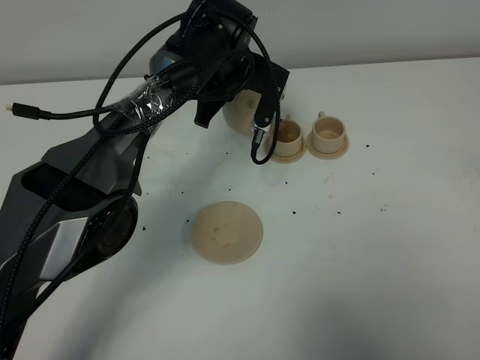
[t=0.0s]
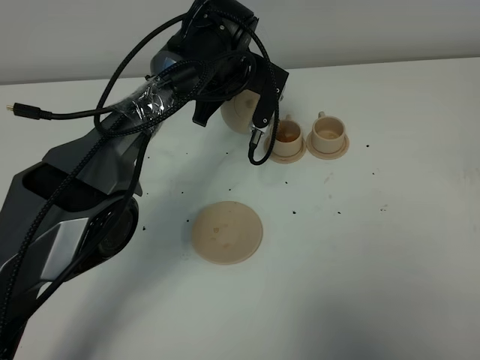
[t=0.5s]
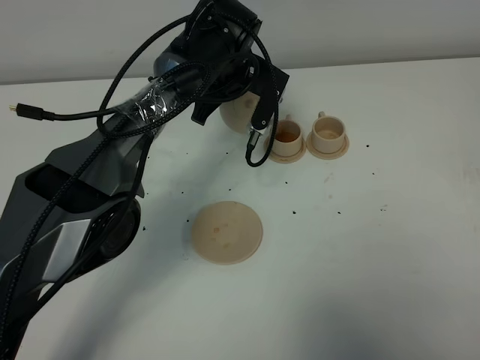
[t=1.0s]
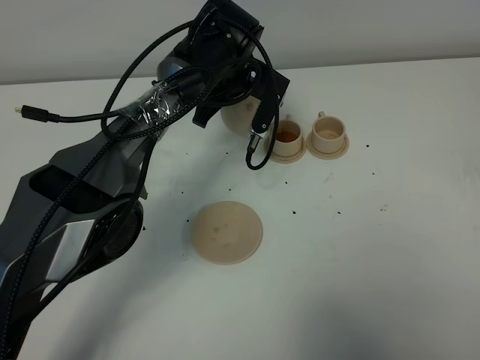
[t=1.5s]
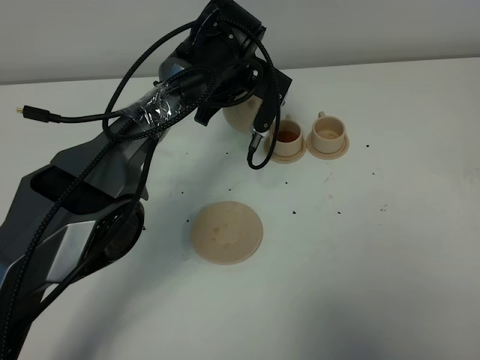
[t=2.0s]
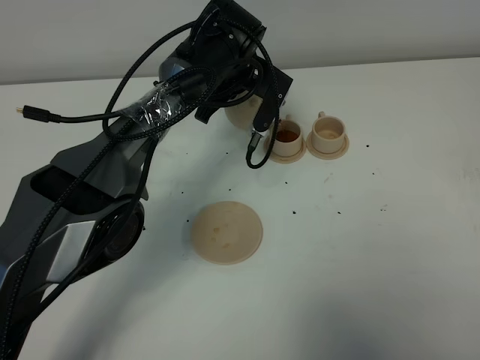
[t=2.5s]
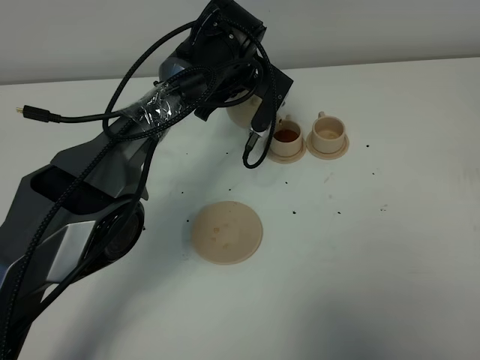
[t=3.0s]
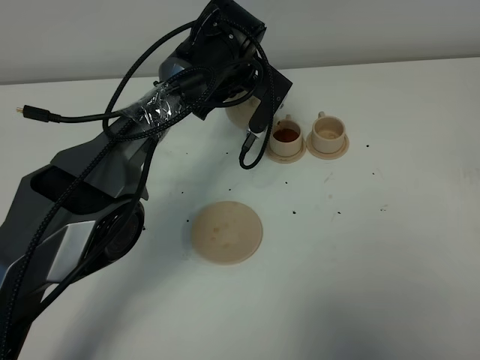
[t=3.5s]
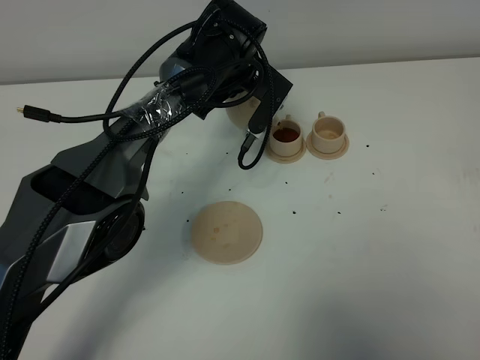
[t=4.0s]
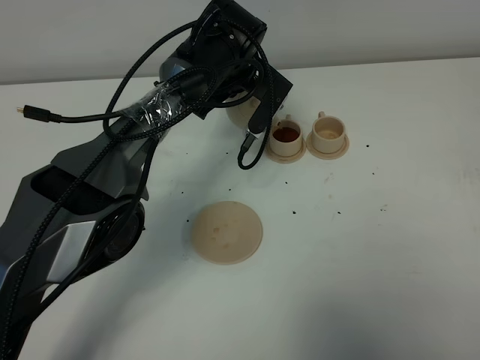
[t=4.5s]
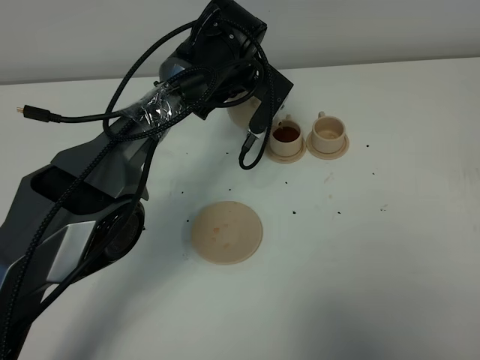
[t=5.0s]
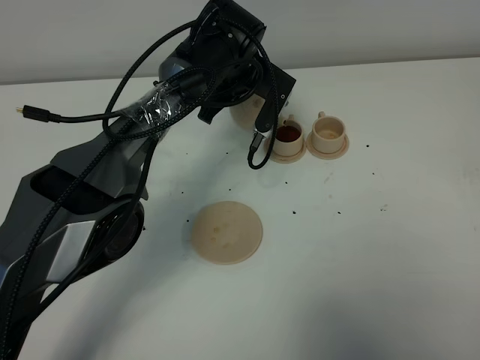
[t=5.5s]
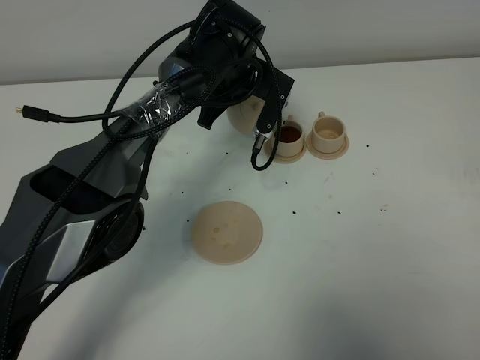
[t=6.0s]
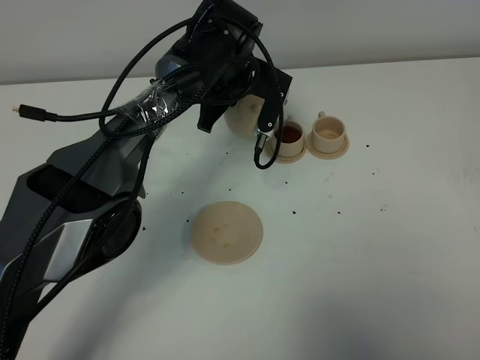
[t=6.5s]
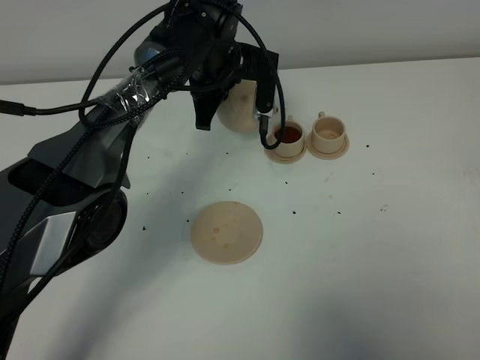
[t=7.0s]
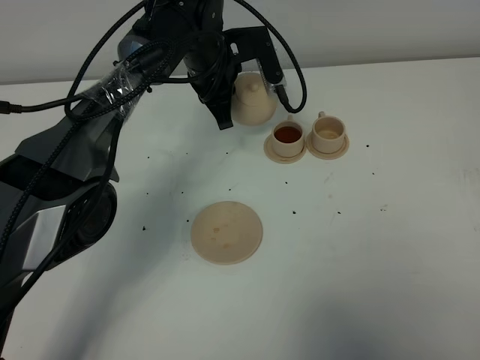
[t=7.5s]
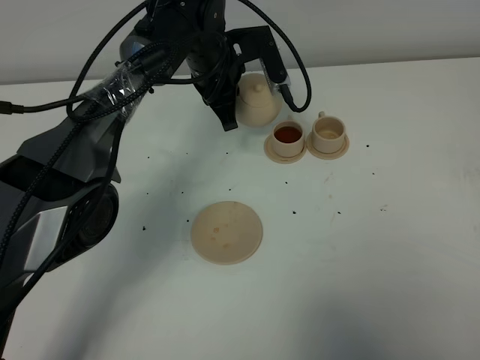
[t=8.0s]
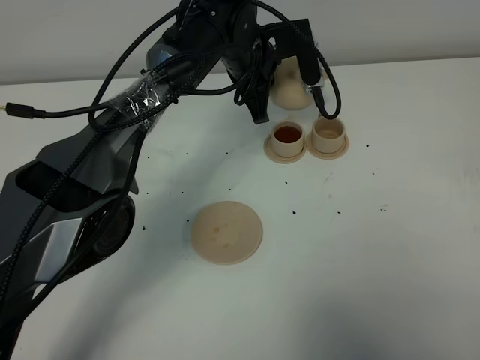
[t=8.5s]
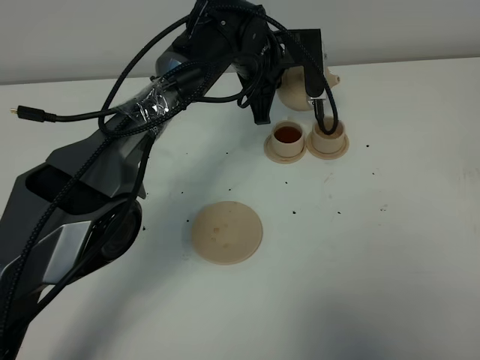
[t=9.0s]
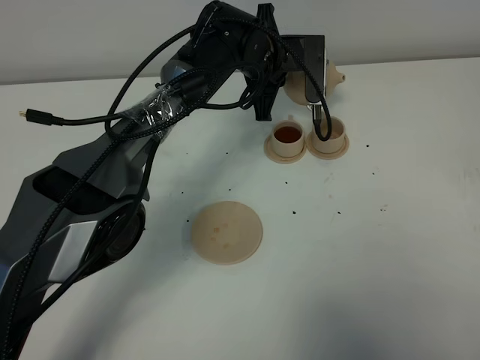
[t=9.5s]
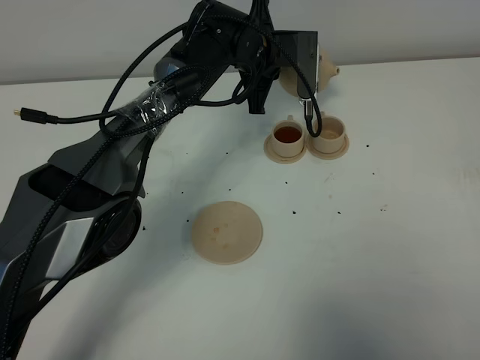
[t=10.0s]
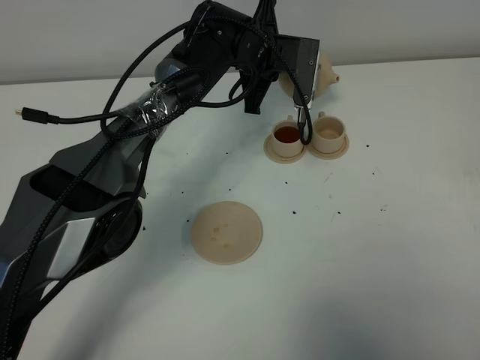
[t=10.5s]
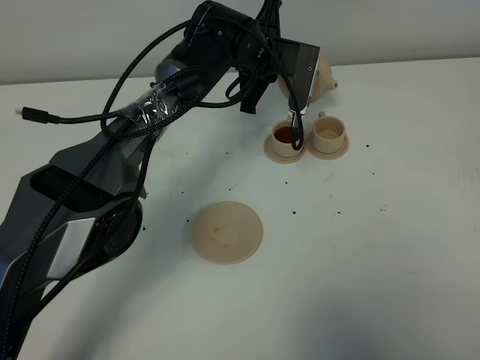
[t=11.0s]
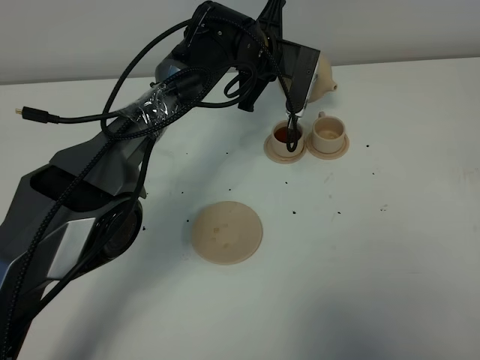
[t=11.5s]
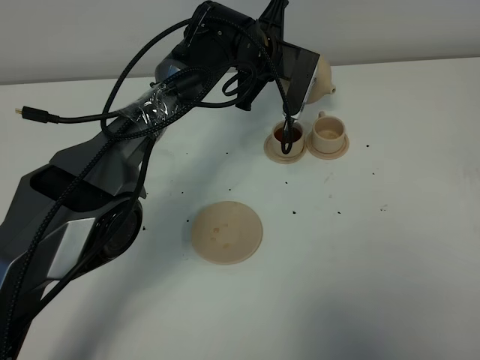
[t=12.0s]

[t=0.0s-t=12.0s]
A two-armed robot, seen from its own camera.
Task of the whole recording: grasp the brown teapot and pour the tea into the two brown teacups one by one, put the brown teapot back in its original place.
t=0.0s to t=6.0s: There are only small adjustments of the grippers.
t=8.0s to t=10.0s: The left gripper changes place by about 5 cm.
t=10.0s to t=12.0s: The grippers move only a little.

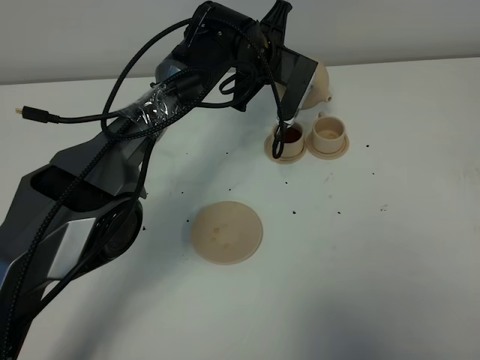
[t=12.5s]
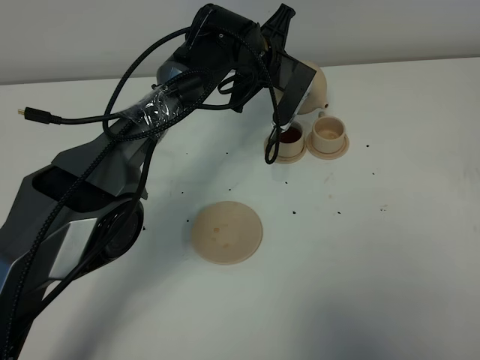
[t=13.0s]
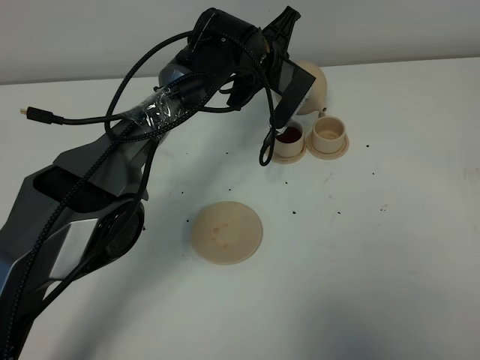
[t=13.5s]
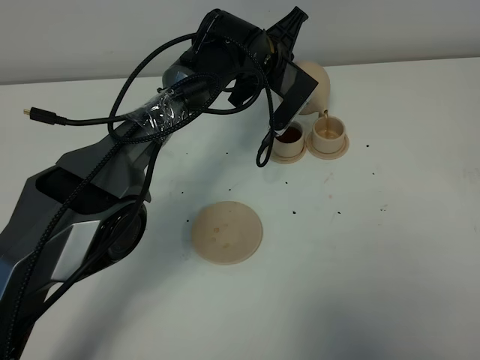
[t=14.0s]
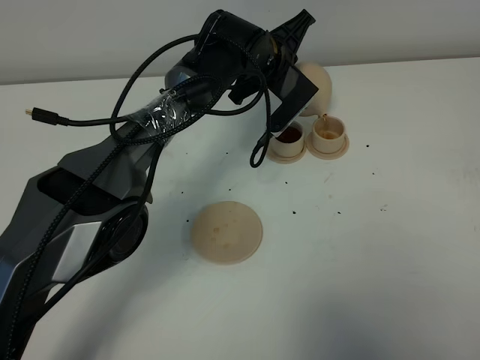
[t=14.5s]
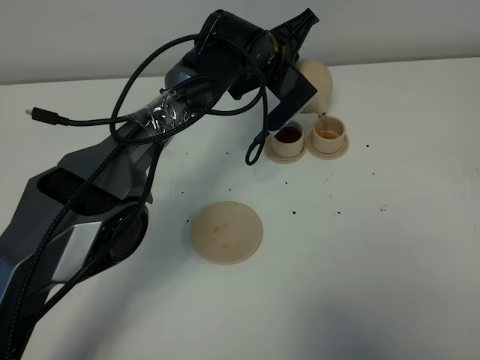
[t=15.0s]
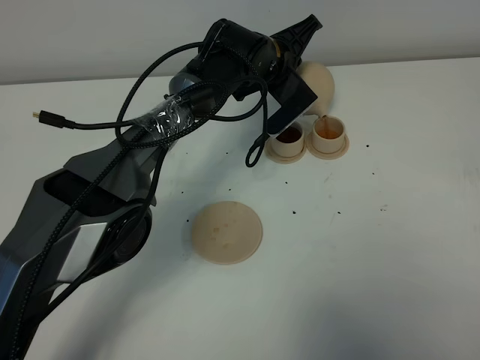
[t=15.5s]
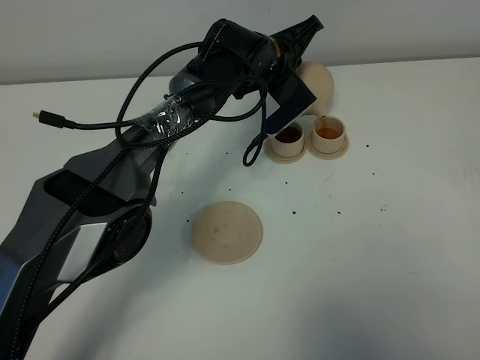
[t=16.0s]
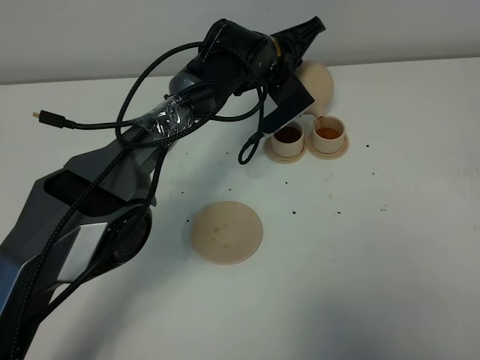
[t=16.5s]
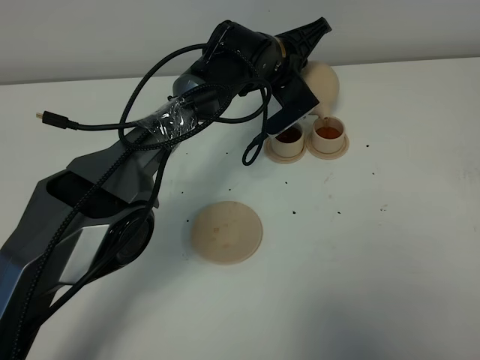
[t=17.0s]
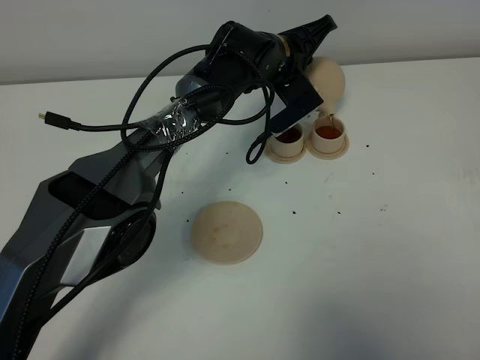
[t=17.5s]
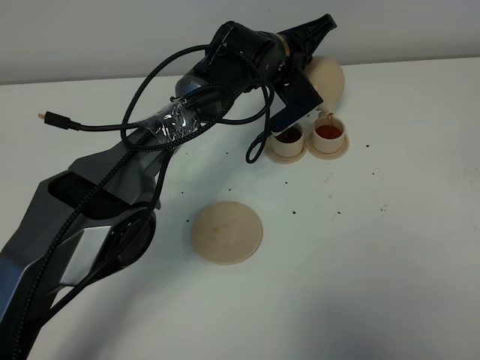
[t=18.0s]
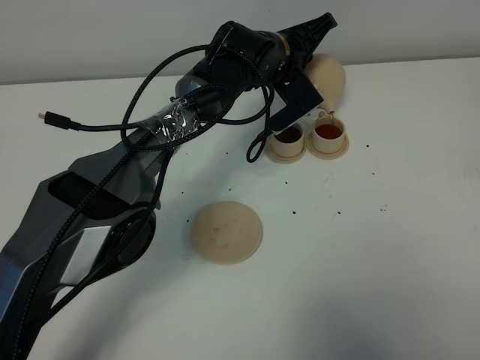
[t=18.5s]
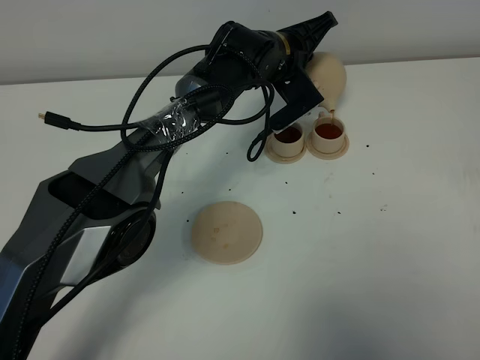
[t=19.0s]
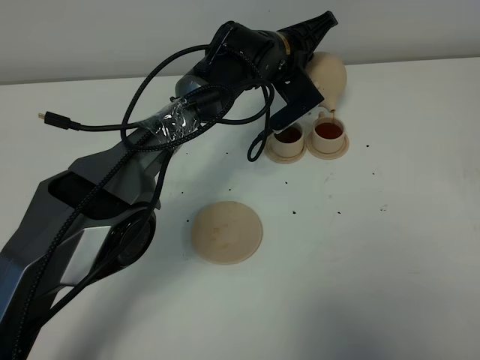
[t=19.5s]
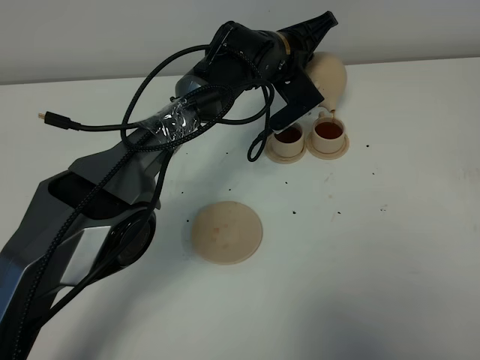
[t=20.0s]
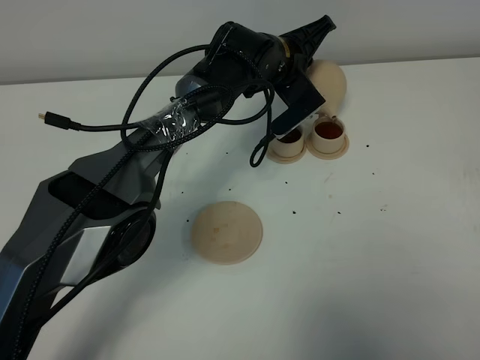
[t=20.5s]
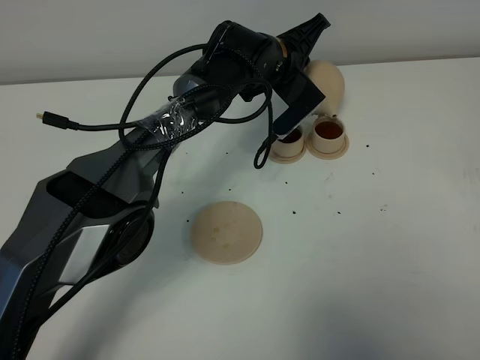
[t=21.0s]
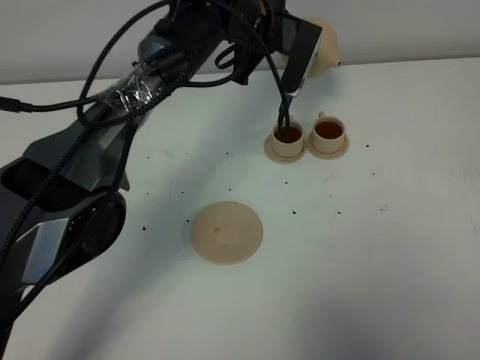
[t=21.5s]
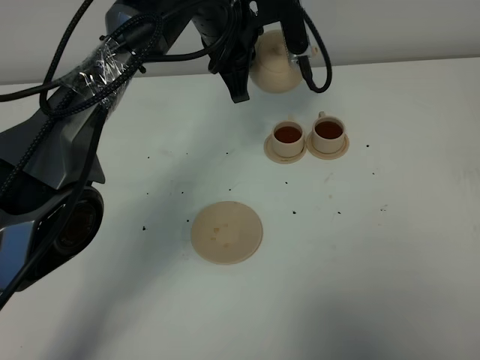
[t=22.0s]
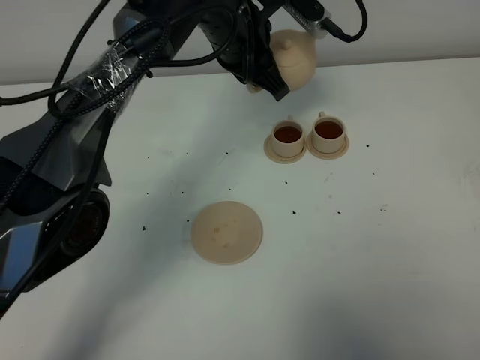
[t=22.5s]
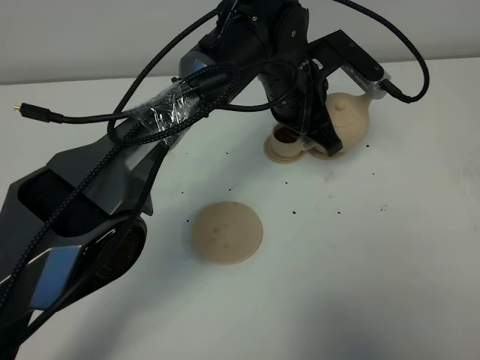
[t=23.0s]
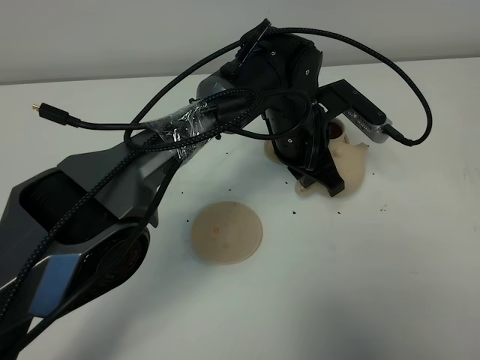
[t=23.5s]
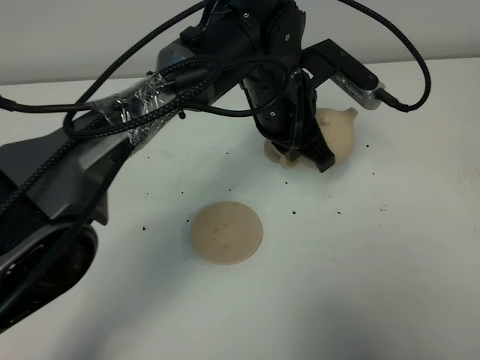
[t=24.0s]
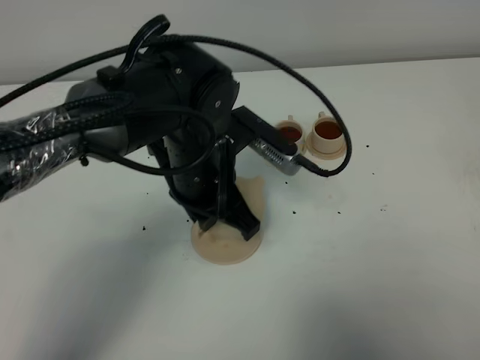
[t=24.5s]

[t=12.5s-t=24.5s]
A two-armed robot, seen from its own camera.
Task of the whole recording: grasp the brown teapot and pour the tea into the two brown teacups one by one, put the brown teapot back in its original place.
Step, t=12.5s to t=21.0s: Pour tea into the teacup with the left gripper.
t=12.5s to t=14.5s: The grippers make only small movements.
t=14.5s to t=16.5s: The grippers make only small movements.
t=16.5s to t=18.5s: Both grippers stay put.
t=18.5s to t=20.5s: Both grippers stay put.
t=20.5s to t=22.5s: The left gripper travels upward and backward by about 10 cm.
t=22.5s to t=24.5s: The left gripper goes roughly 15 cm backward.

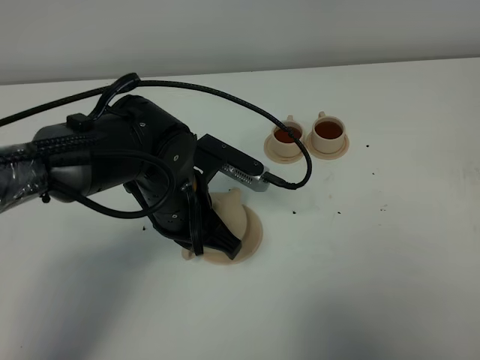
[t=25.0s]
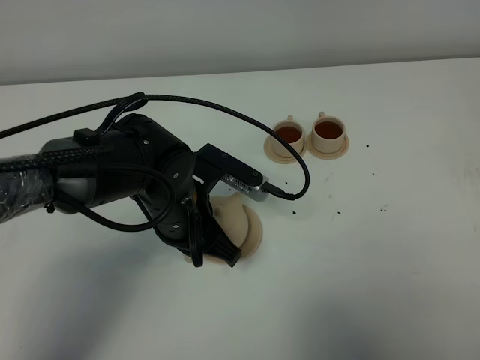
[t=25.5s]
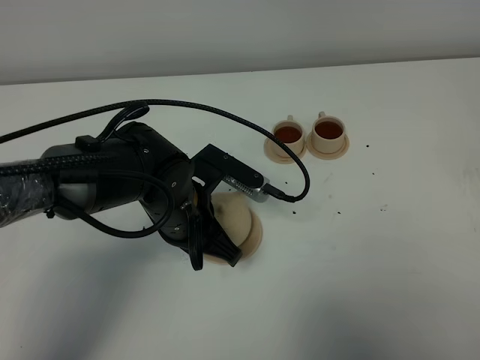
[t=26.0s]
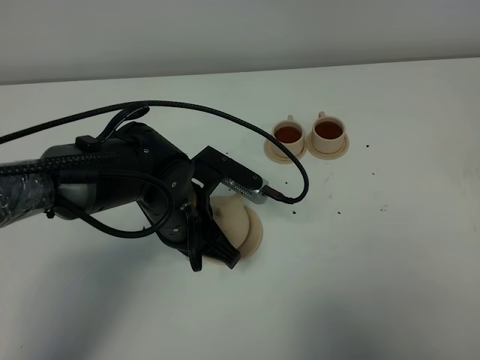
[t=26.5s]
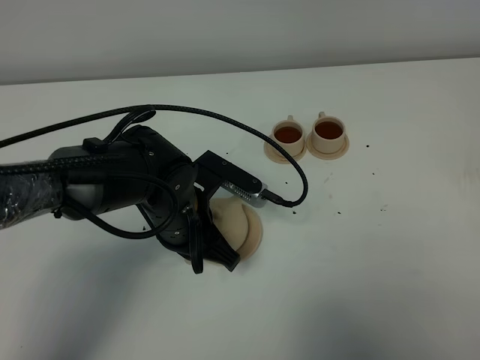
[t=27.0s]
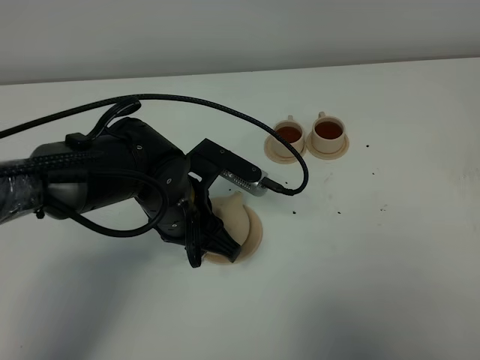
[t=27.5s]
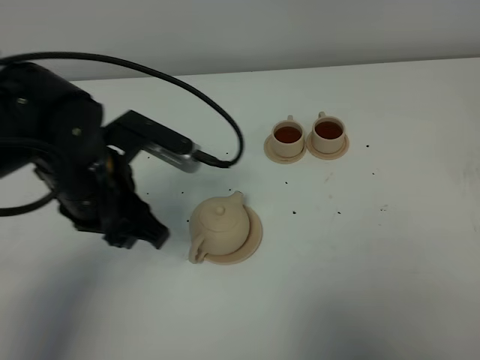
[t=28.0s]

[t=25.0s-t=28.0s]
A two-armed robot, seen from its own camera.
Task of the whole recording: grasp the brown teapot and pour the tea into the two brown teacups one by one, put the brown teapot back in its original place.
t=25.0s to t=26.5s: There are only small adjustments of the grippers.
t=26.5s to t=28.0s: The left gripper heads upward and to the left, covering some 15 cm, and opens its fingers.
